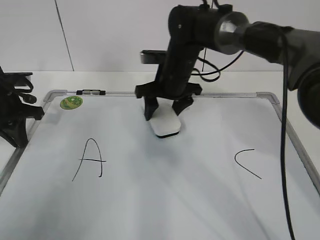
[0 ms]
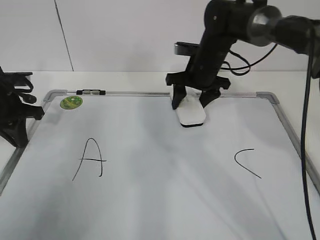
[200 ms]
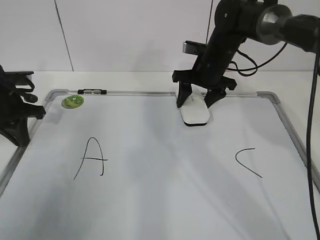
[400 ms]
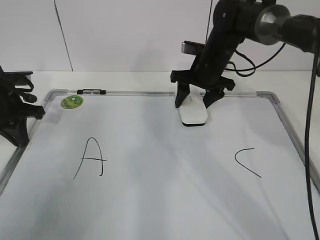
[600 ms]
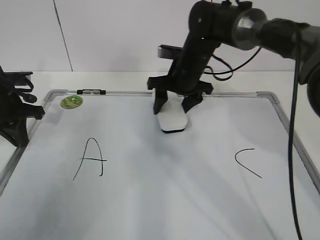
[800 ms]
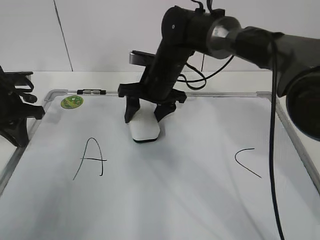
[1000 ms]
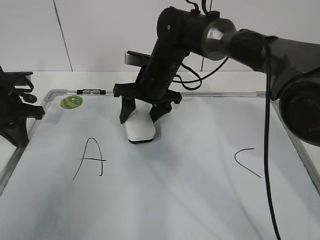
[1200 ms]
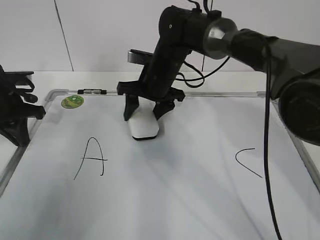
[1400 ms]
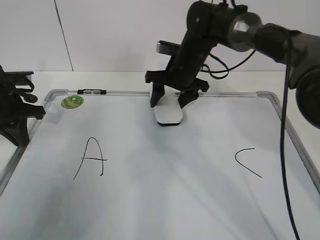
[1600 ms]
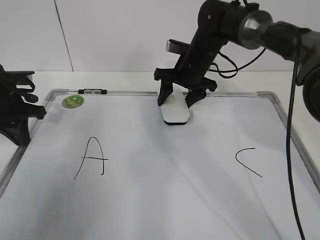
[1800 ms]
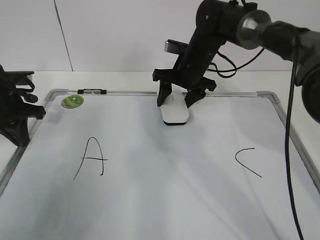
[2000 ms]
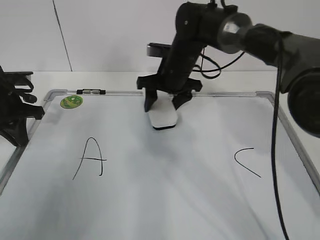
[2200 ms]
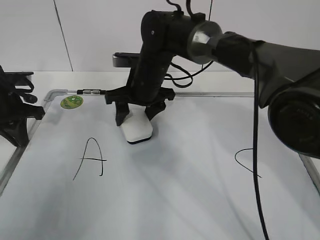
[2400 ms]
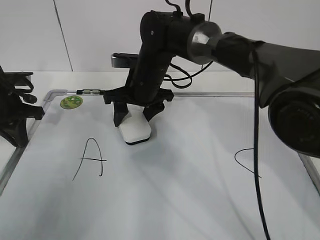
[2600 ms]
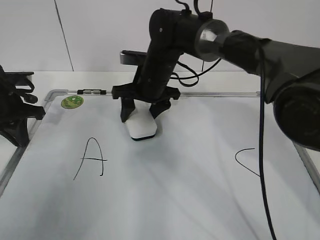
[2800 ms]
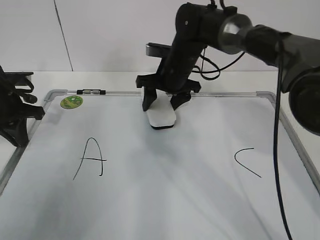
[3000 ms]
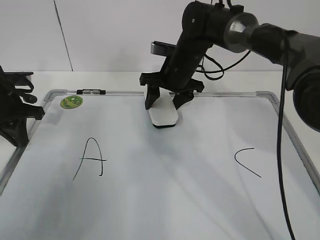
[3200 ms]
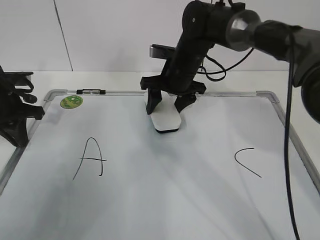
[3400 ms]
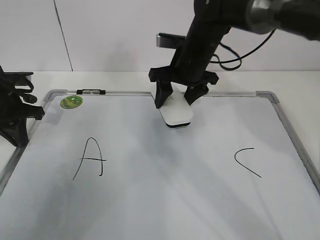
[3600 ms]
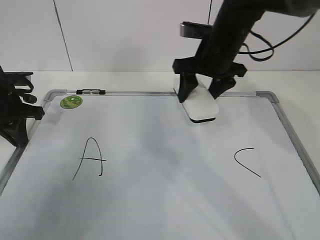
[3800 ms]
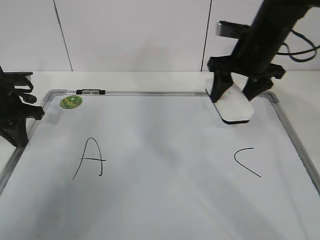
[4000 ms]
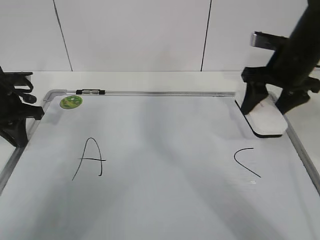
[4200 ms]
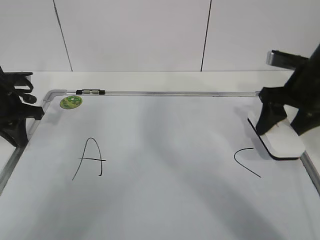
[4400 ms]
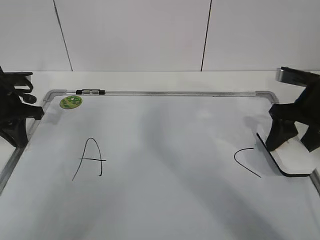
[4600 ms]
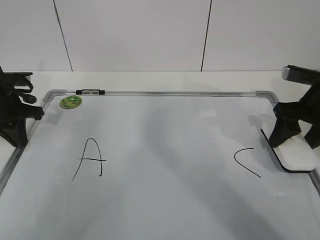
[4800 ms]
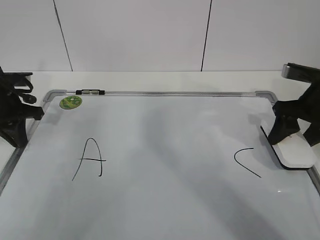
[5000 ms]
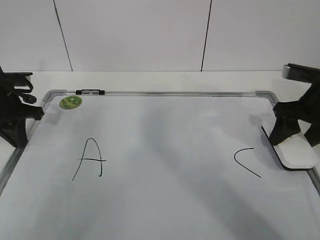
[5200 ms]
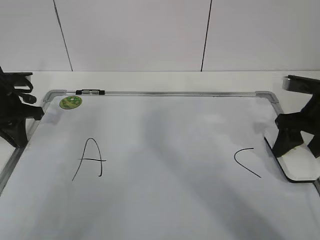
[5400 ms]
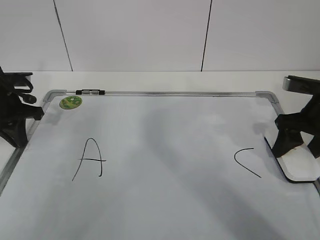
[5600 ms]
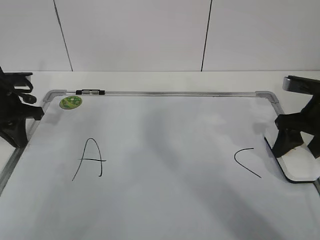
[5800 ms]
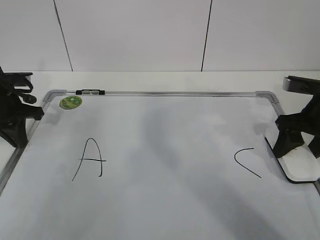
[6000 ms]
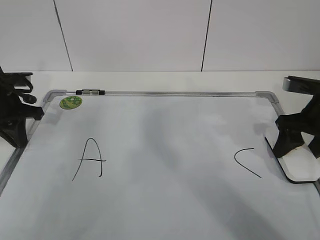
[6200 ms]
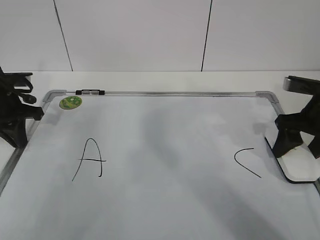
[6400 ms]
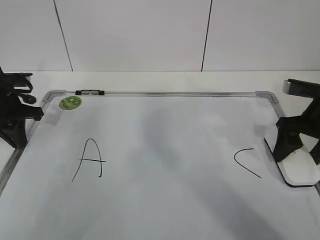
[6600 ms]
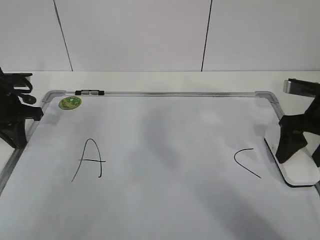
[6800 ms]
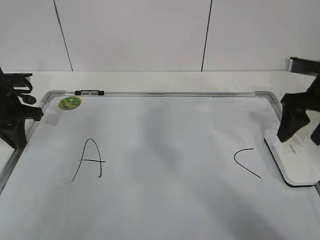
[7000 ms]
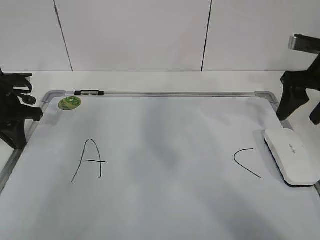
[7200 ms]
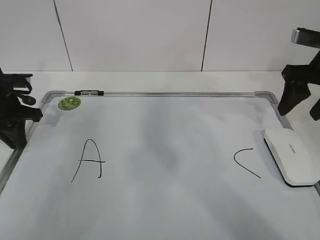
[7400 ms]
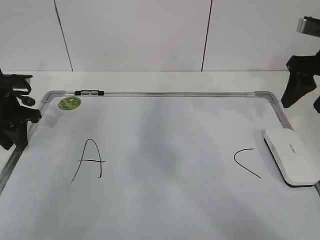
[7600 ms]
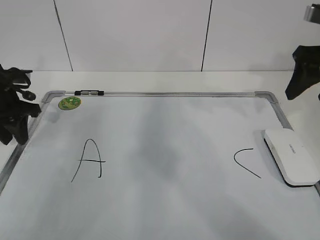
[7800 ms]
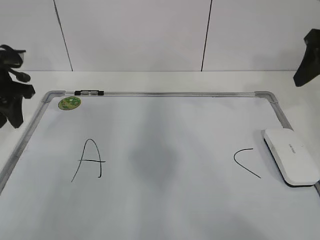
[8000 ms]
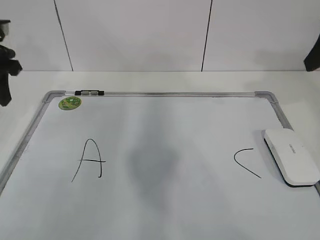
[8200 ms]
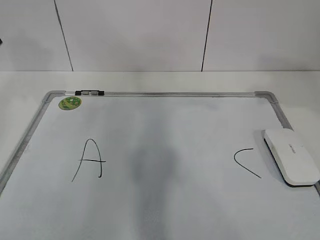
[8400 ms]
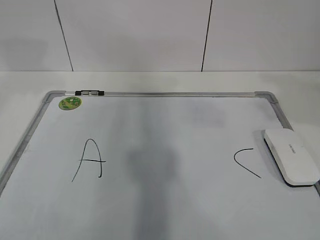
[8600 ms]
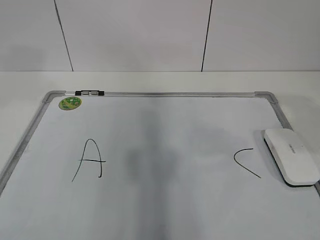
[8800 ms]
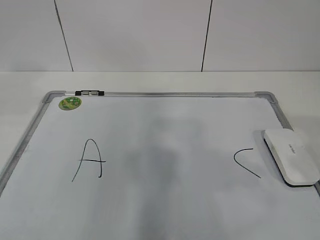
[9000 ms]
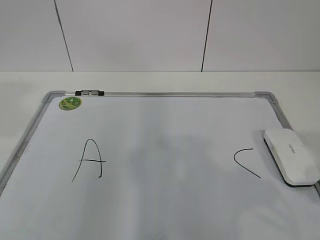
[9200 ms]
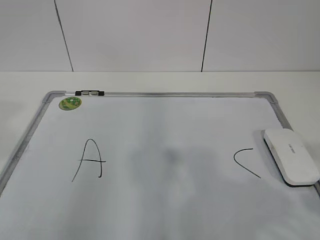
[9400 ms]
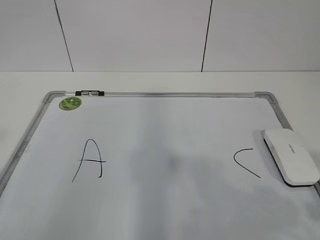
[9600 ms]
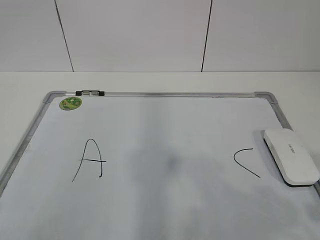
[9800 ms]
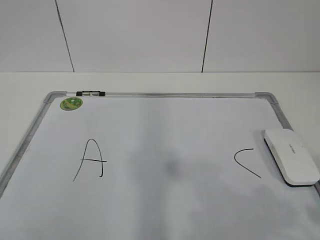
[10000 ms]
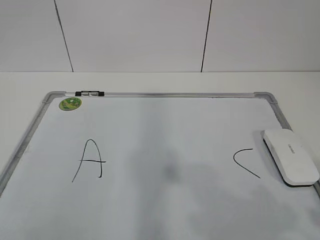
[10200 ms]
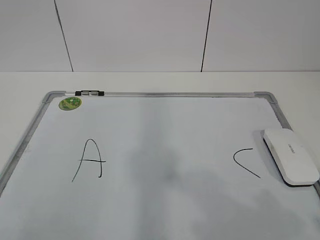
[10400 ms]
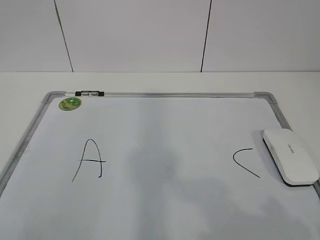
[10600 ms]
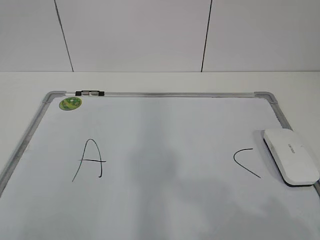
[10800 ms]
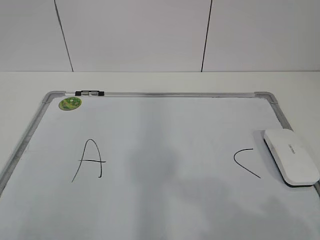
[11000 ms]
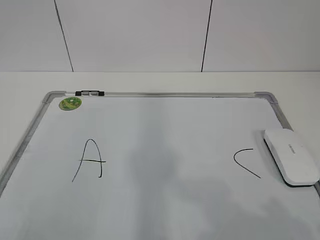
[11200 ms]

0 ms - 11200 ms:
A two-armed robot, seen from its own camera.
Task of the whole recording: pick up the eraser on the blackboard and erase the letter "B".
Step, 0 ms - 2600 ms: Put down the eraser with your right hand.
0 ms - 1600 ms: The right gripper goes left and right, approximately 15 cm each way, reversing 2 times.
1600 ms - 3200 ms: The right gripper reaches roughly 10 cm to the left, then returns.
3200 ms - 4800 ms: The right gripper heads to the right and backward, covering about 25 cm.
4800 ms - 6400 ms: There are only small adjustments of the grippers.
6400 ms - 8000 ms: The right gripper heads upward, covering roughly 15 cm, and opens, then closes once more. The left gripper heads upward, covering about 5 cm, and opens its fingers.
8000 ms - 9600 ms: The two grippers go some 30 cm backward.
